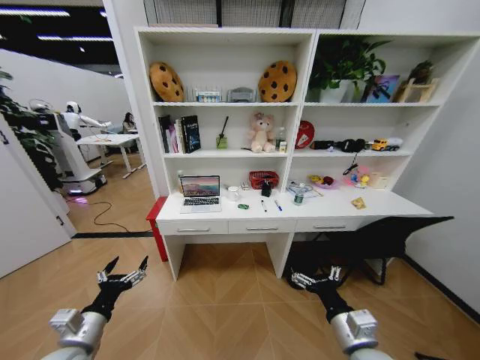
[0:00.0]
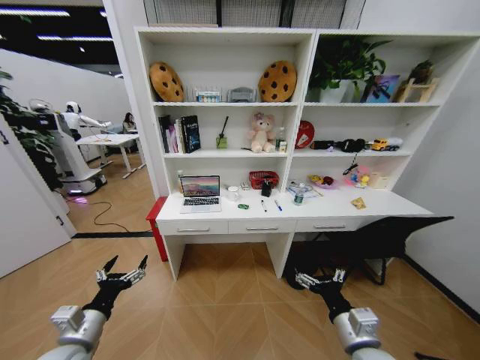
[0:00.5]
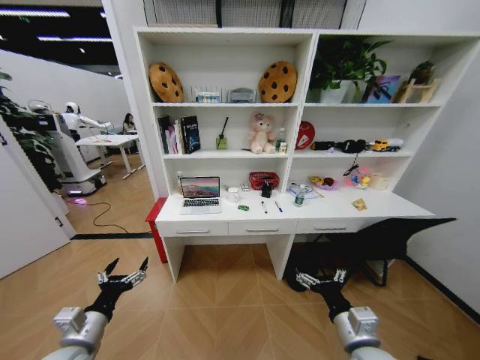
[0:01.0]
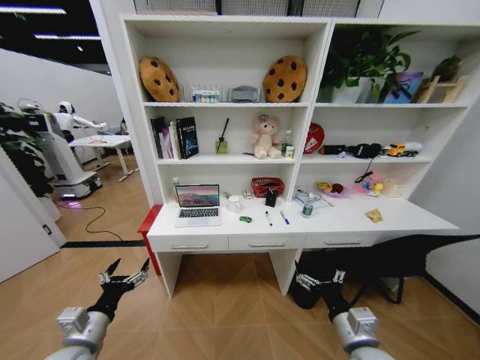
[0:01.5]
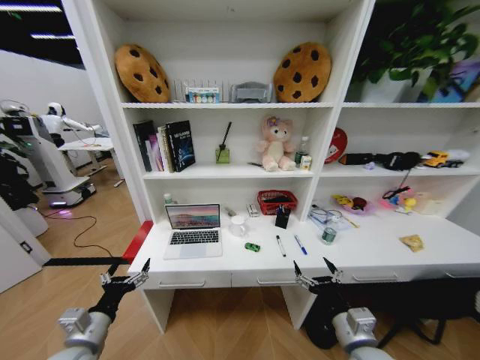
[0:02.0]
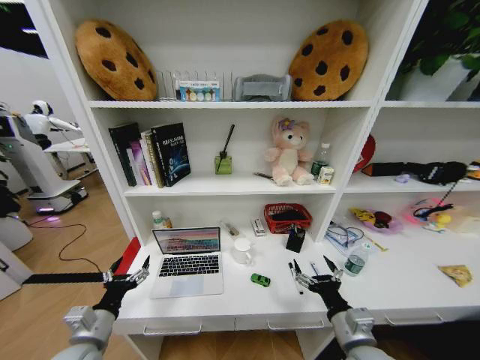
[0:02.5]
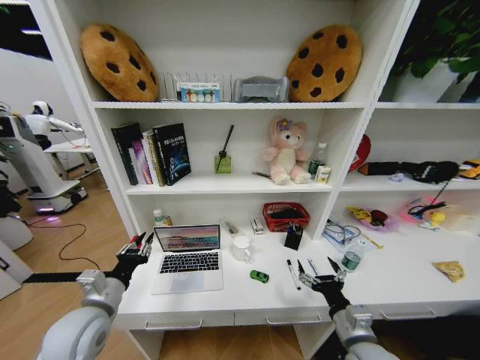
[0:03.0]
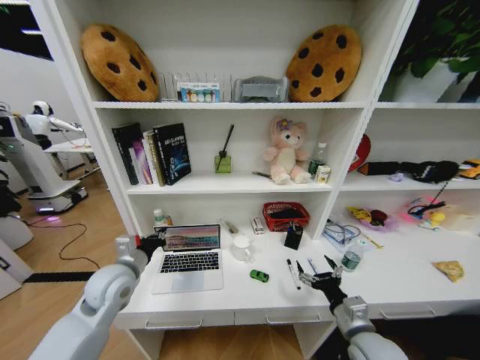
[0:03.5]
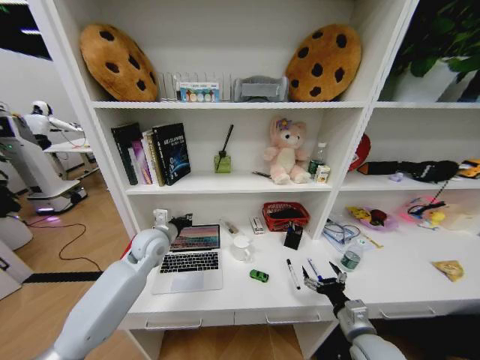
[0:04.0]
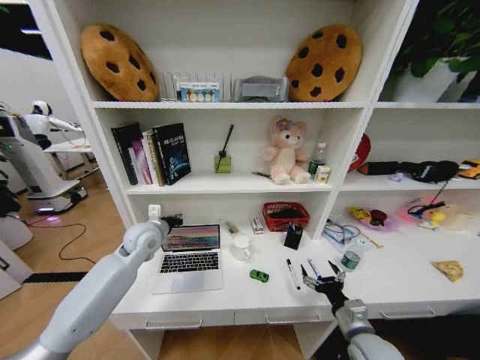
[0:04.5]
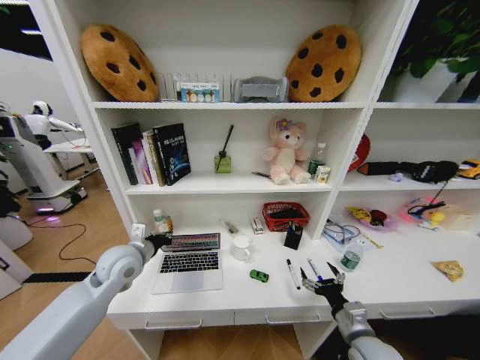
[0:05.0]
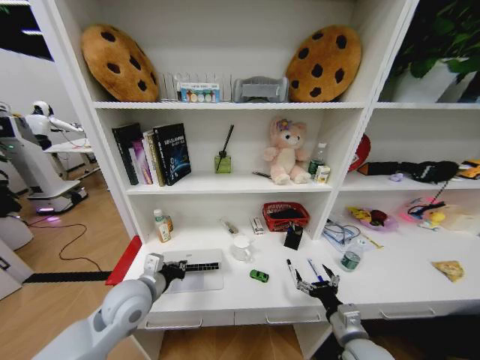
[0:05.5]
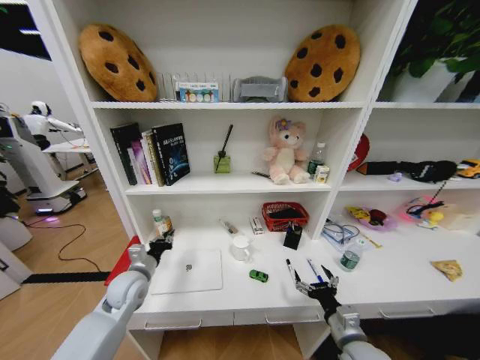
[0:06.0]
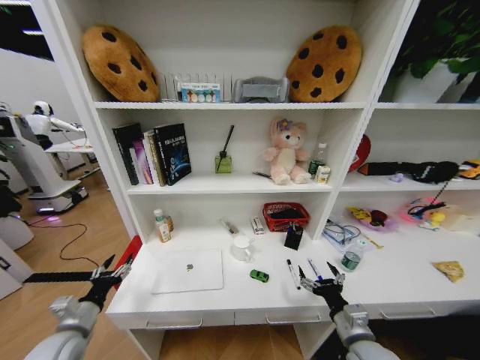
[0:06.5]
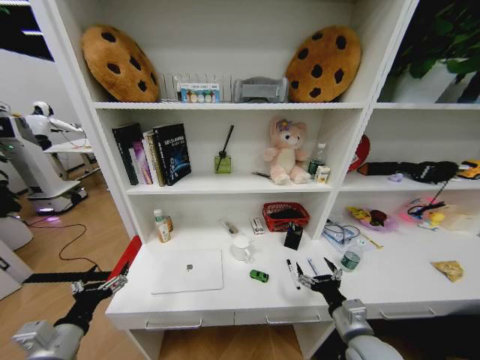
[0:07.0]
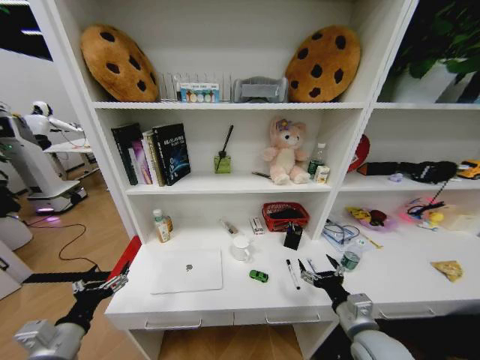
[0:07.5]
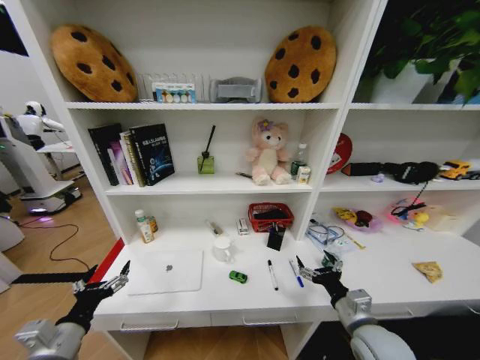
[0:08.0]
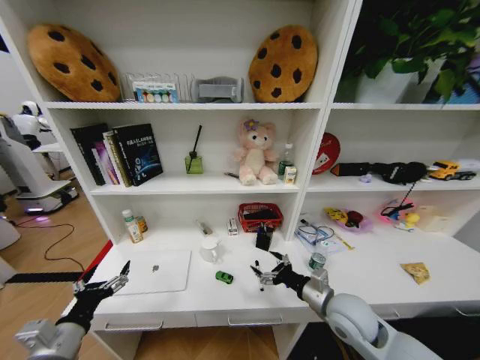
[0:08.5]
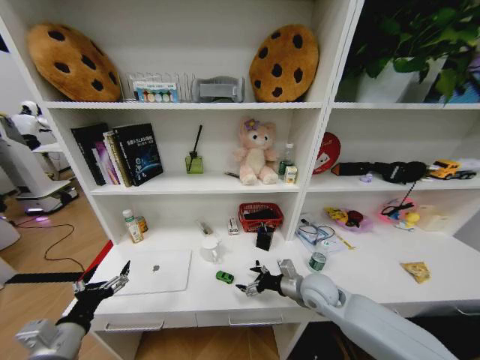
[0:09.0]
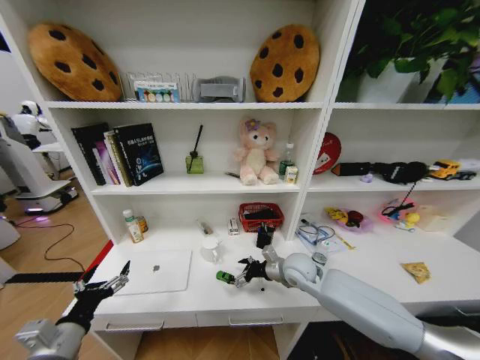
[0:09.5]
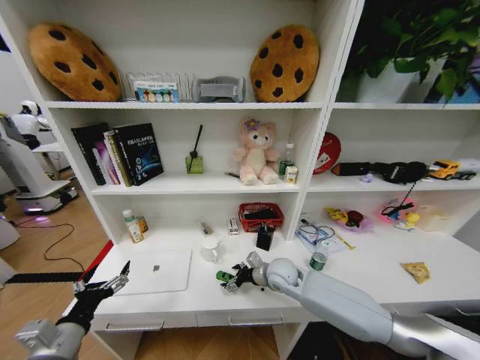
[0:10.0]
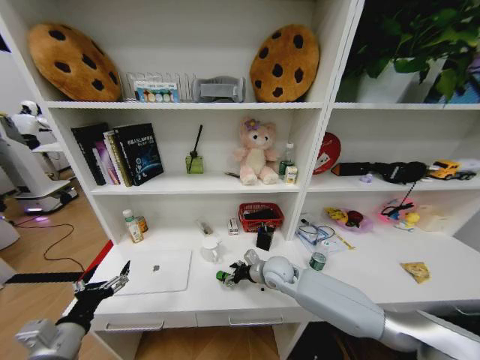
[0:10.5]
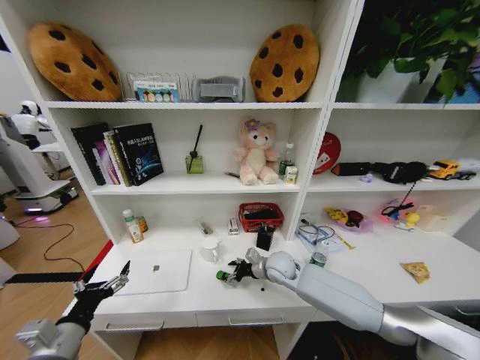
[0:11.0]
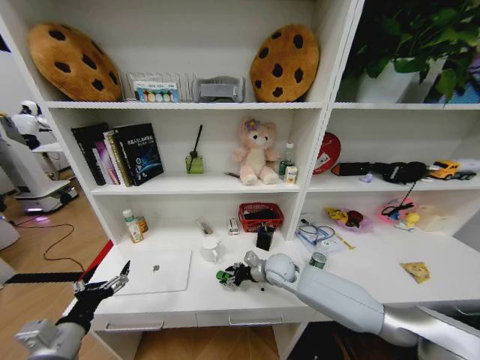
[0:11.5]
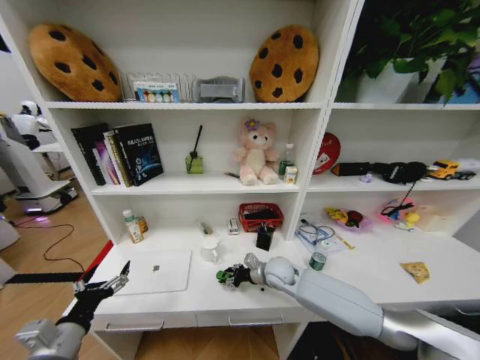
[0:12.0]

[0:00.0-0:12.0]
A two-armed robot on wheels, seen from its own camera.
Task of the whole recording: Organize the objects on the table.
0:02.0 to 0:04.0: The left gripper moves forward and to the right, approximately 25 cm, and closes. Meanwhile the right gripper goes roughly 5 cm to the right and downward.
0:04.0 to 0:06.0: The left gripper heads downward, backward and to the left, covering approximately 10 cm.
0:06.0 to 0:08.0: The left gripper travels backward by some 20 cm, and opens its fingers. Meanwhile the right gripper moves roughly 5 cm.
0:08.0 to 0:10.0: The right gripper heads forward and to the left, covering approximately 25 cm.
0:10.0 to 0:12.0: The right gripper closes.

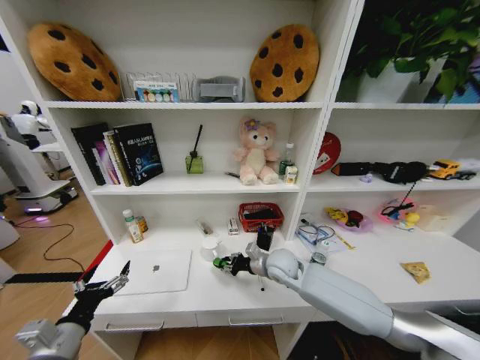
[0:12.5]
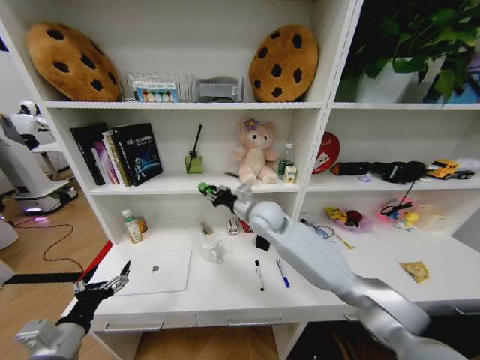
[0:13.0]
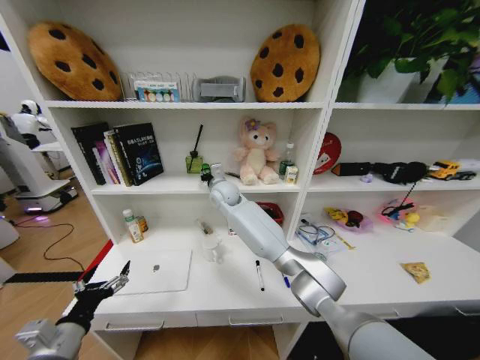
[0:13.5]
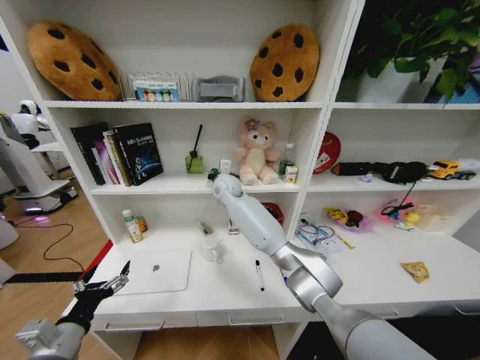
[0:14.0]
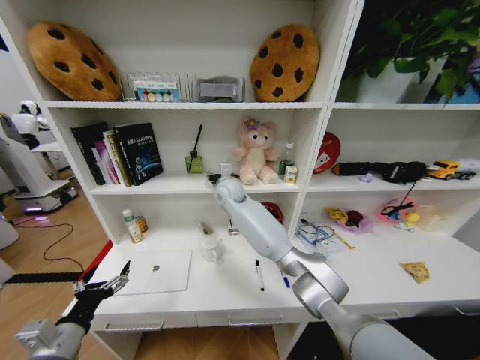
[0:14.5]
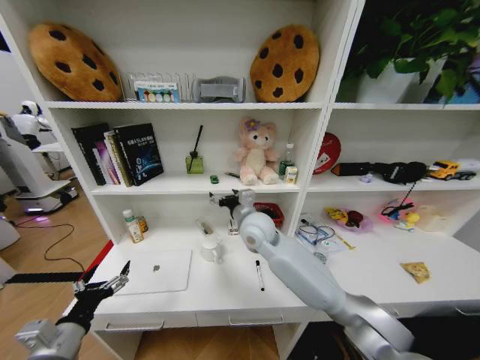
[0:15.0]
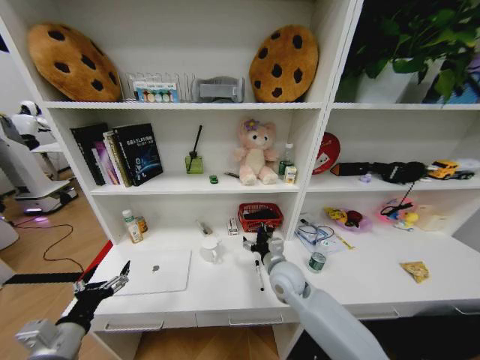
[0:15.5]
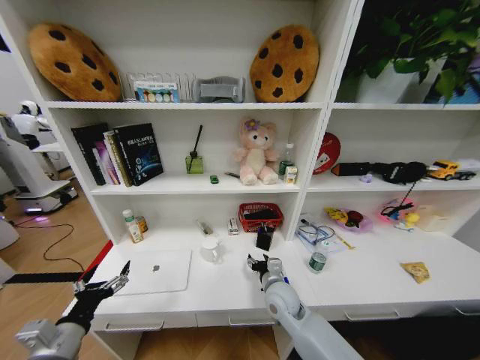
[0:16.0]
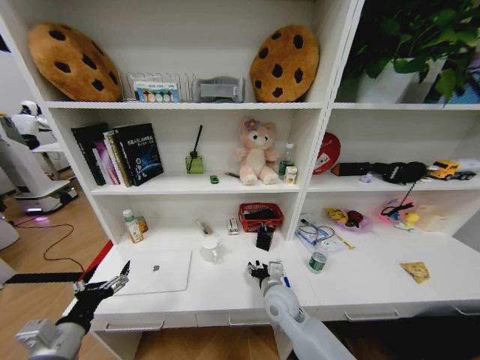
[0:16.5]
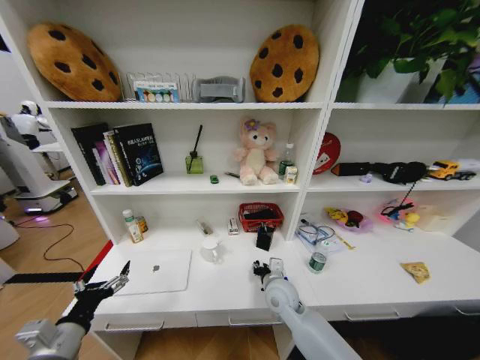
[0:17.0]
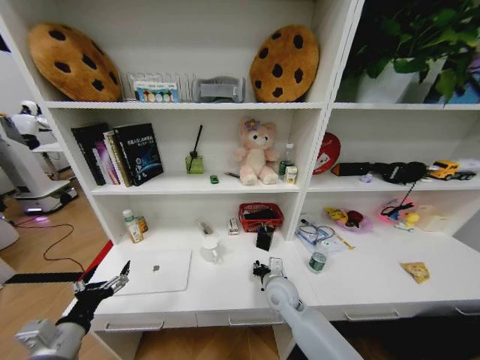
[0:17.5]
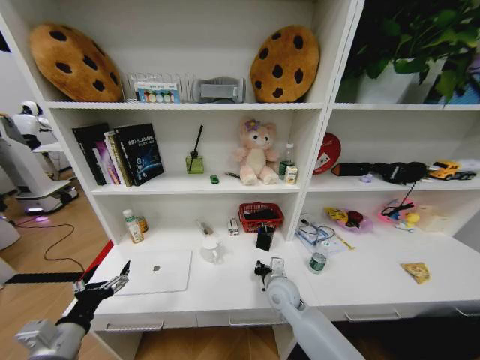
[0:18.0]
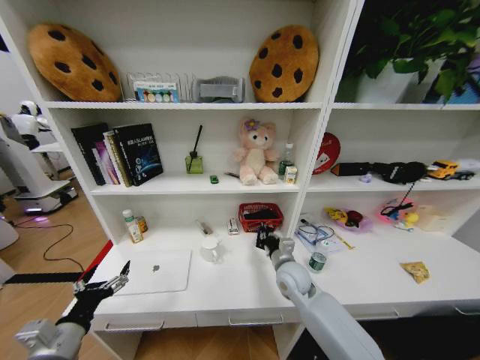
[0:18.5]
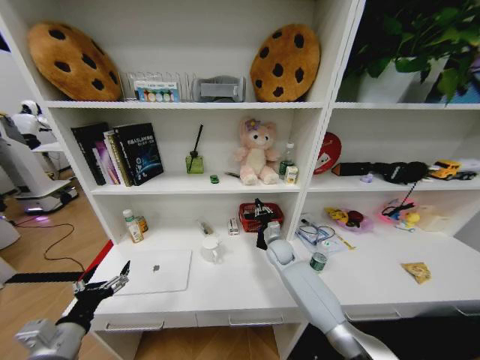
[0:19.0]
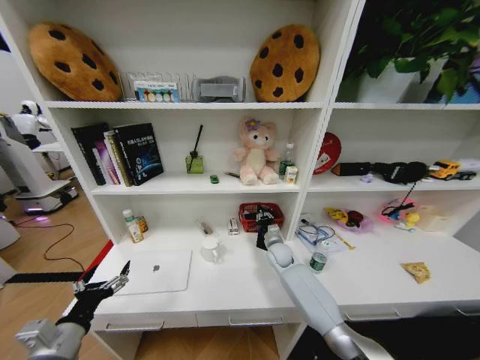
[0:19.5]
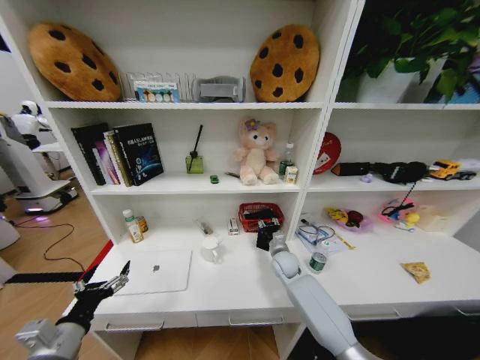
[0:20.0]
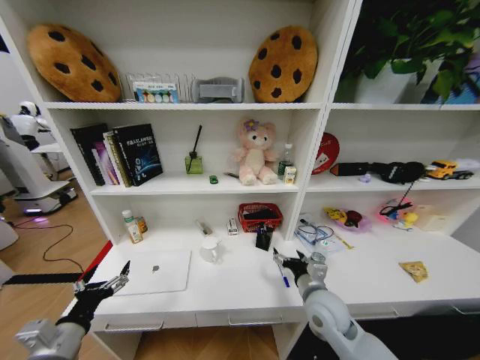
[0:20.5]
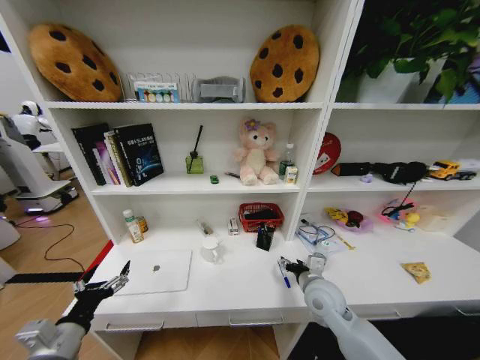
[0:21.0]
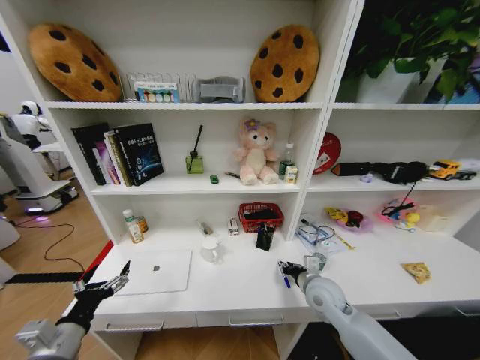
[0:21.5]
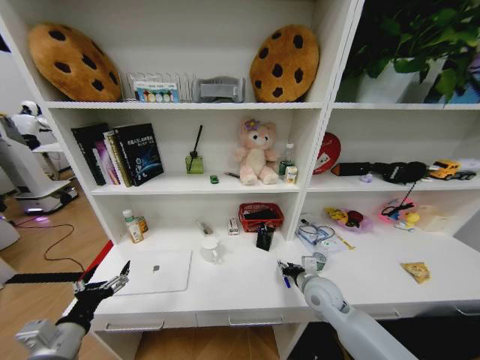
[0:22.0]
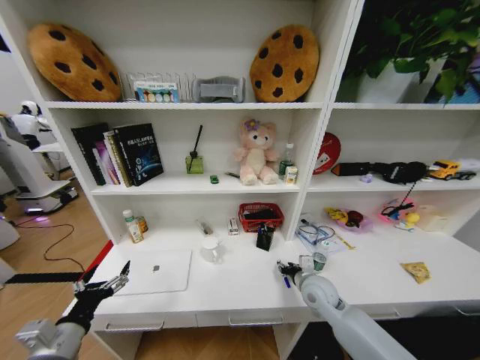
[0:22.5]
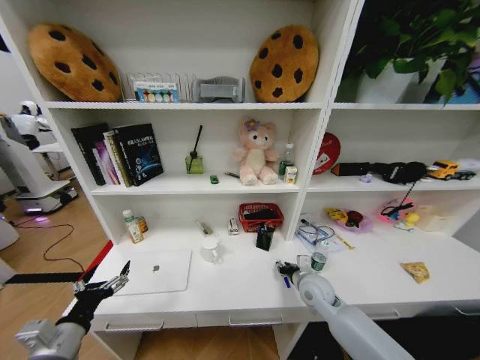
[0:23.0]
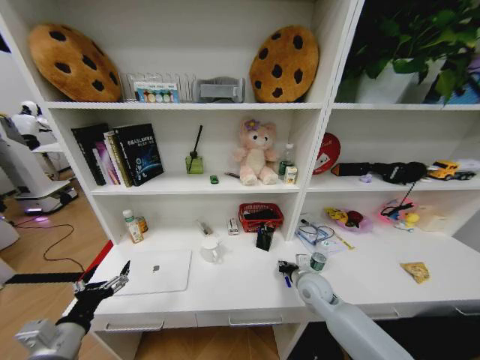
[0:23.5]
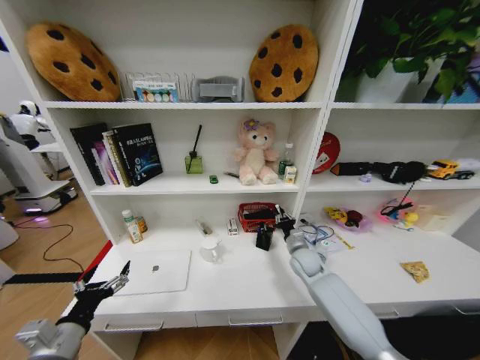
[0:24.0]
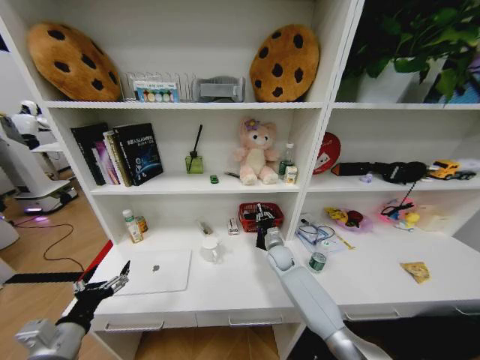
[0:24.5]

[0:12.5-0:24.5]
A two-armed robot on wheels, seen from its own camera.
Task of the whole recording: Organize the objects on the table.
0:12.5 to 0:14.5: The right gripper moves forward, upward and to the left, roughly 30 cm, and opens up.
0:14.5 to 0:16.5: The right gripper shifts roughly 35 cm backward, downward and to the right.
0:16.5 to 0:18.5: The right gripper shifts by approximately 5 cm, and closes.
0:18.5 to 0:20.5: The right gripper travels backward and to the right by some 10 cm, and opens.
0:20.5 to 0:22.5: The right gripper moves forward, approximately 5 cm, and closes.
0:22.5 to 0:24.5: The right gripper is displaced forward and to the left by some 15 cm, and closes its fingers.

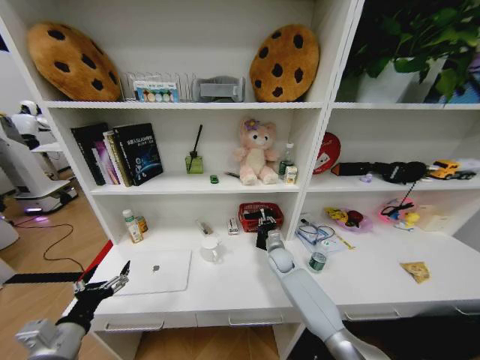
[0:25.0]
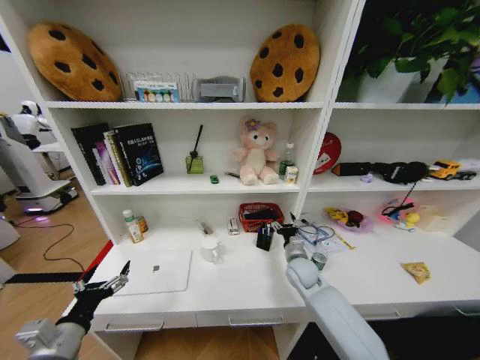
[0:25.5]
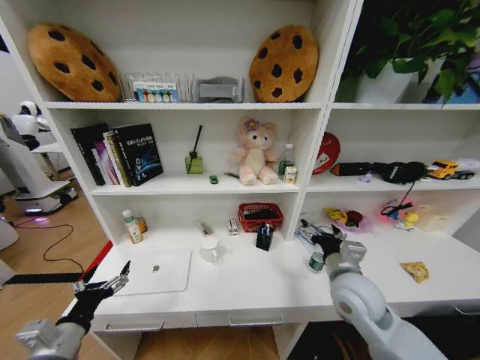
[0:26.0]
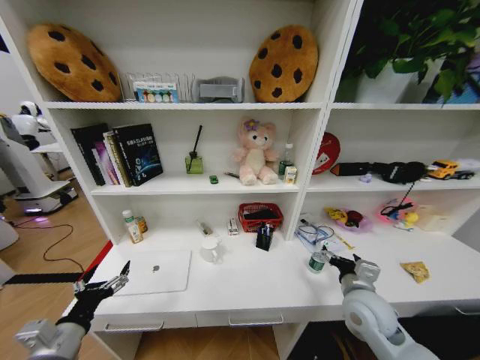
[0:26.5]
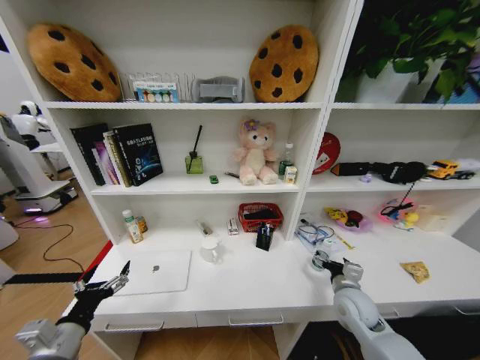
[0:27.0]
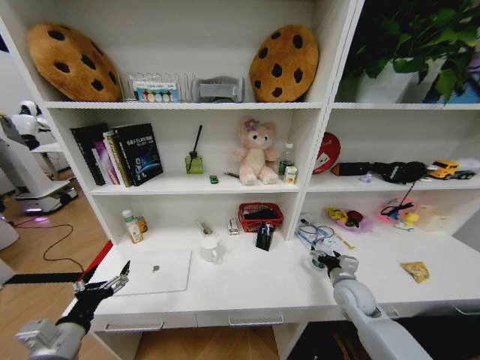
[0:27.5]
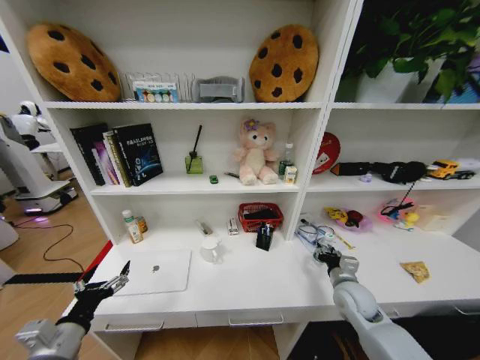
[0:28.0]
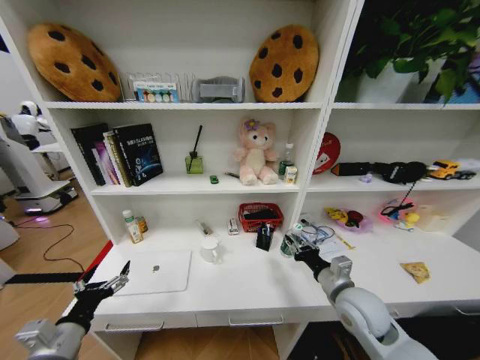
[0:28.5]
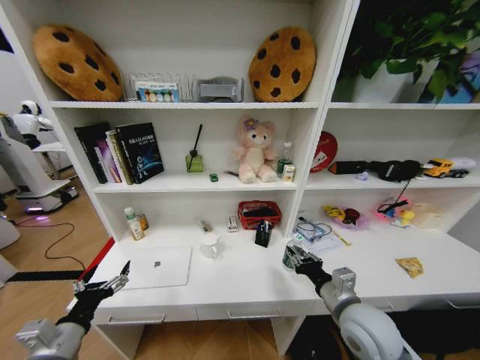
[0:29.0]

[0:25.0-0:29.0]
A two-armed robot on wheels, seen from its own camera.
Task of the whole recording: Organize the objects on the table.
0:25.0 to 0:27.0: The right gripper travels backward and to the right by some 25 cm, and opens up.
0:27.0 to 0:29.0: The right gripper is displaced upward, backward and to the left by some 15 cm, and closes.
